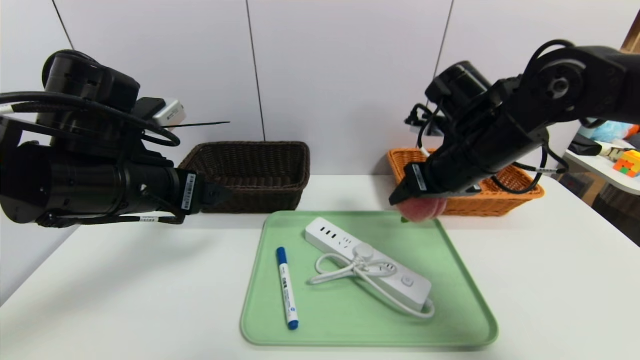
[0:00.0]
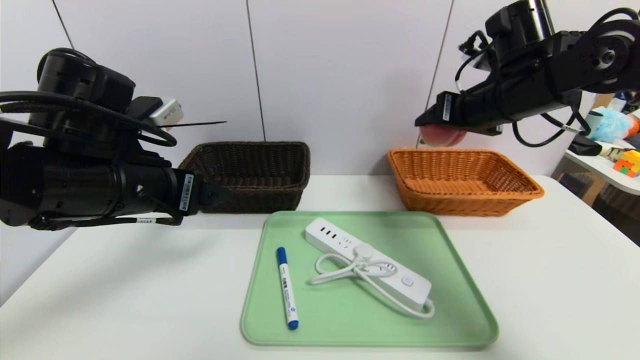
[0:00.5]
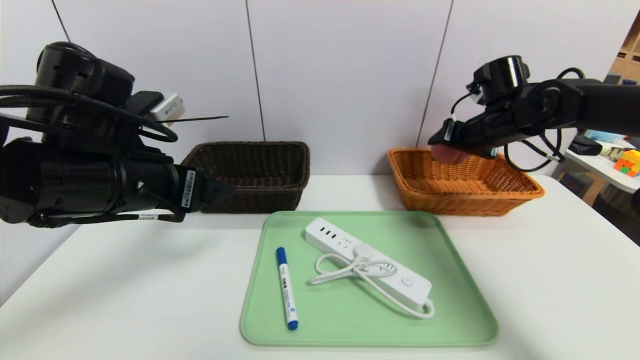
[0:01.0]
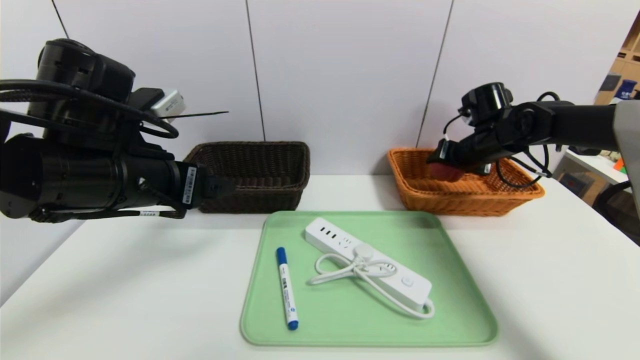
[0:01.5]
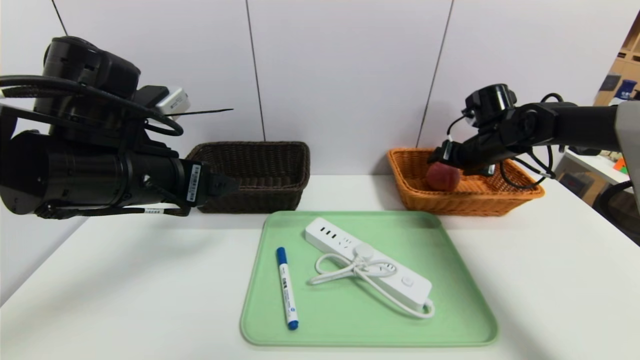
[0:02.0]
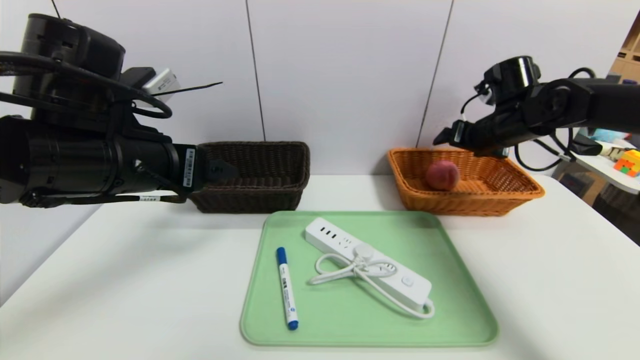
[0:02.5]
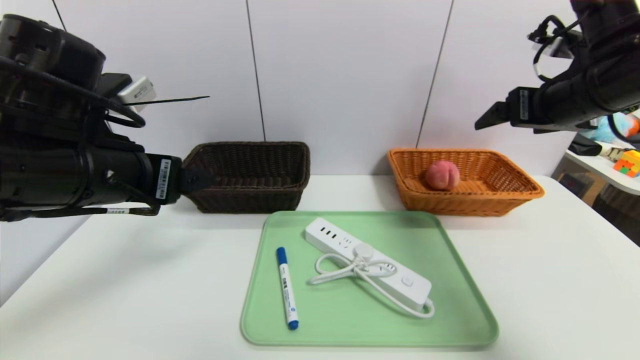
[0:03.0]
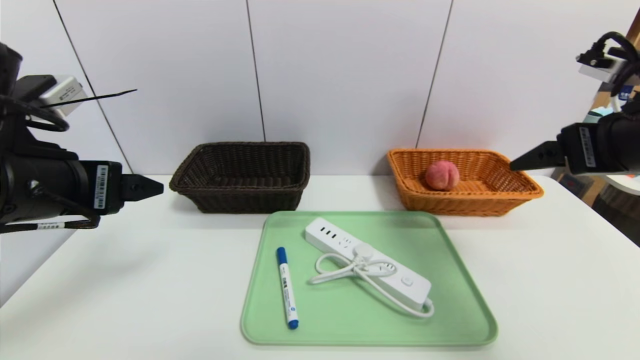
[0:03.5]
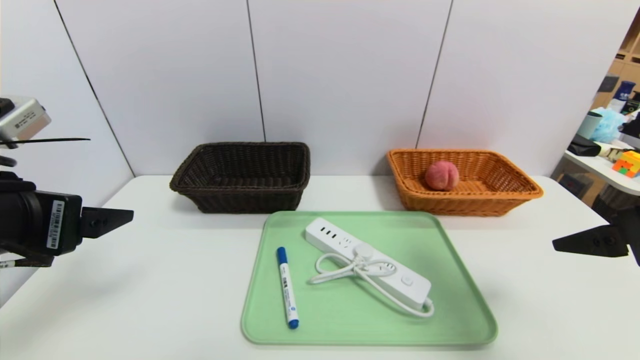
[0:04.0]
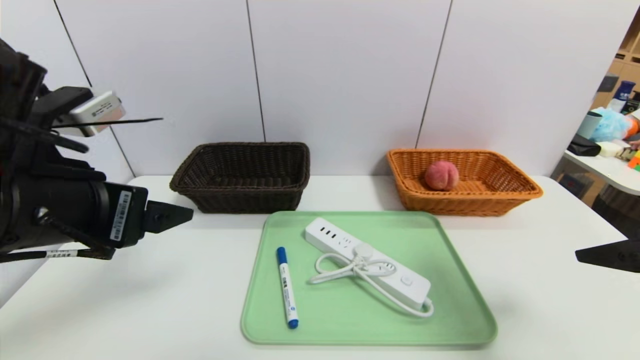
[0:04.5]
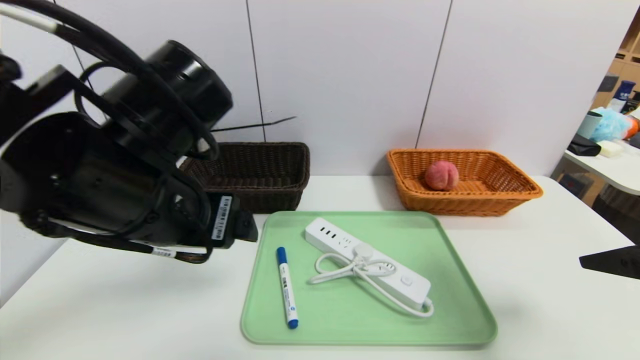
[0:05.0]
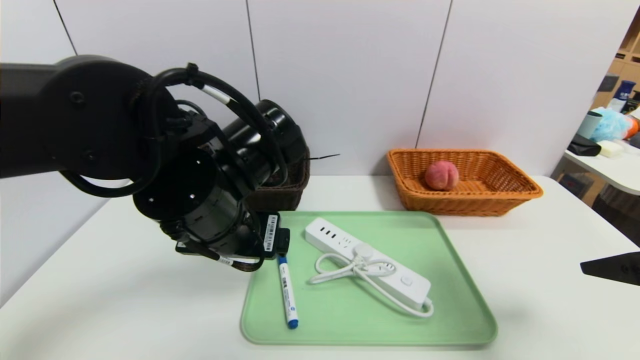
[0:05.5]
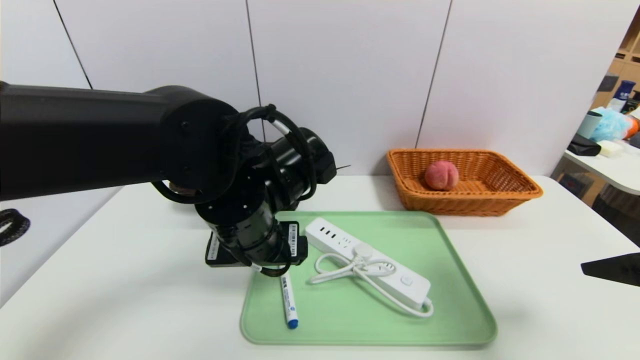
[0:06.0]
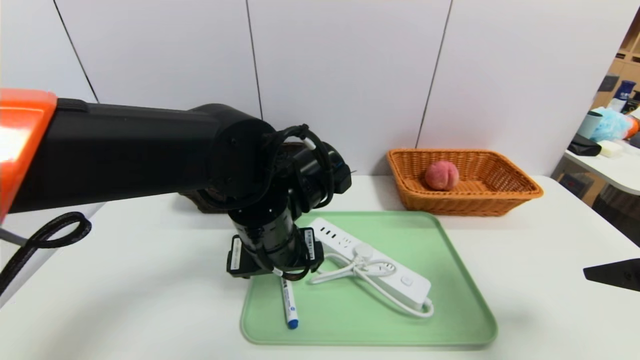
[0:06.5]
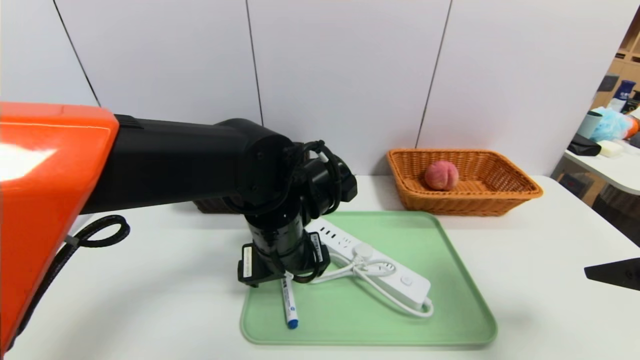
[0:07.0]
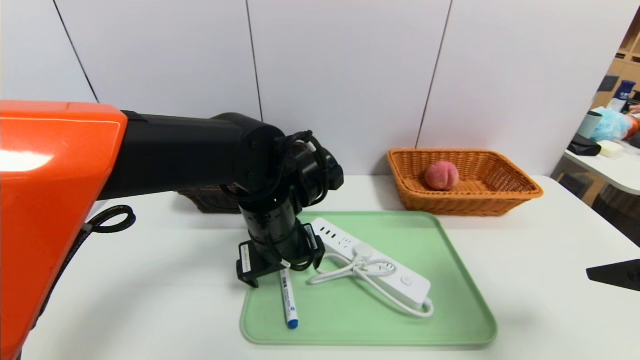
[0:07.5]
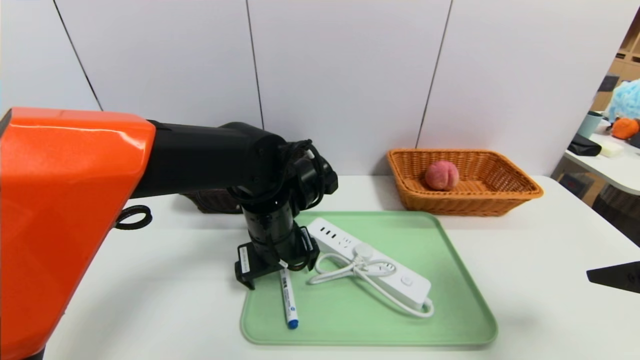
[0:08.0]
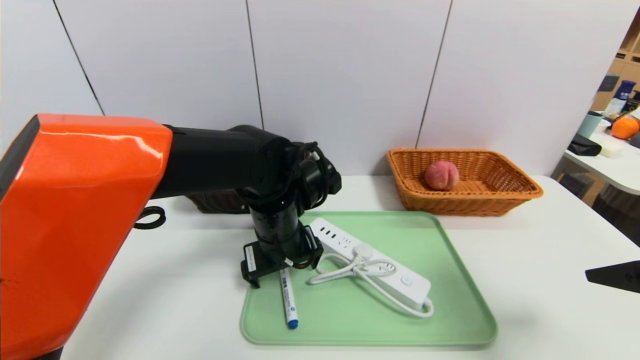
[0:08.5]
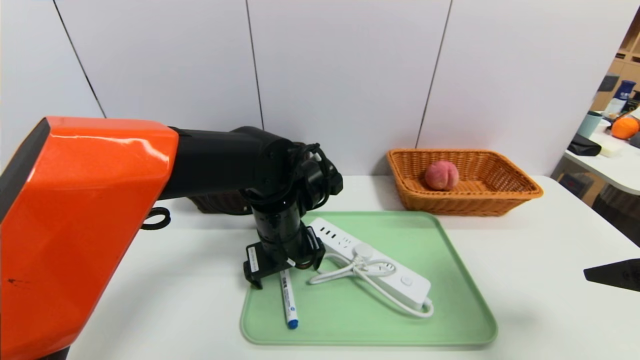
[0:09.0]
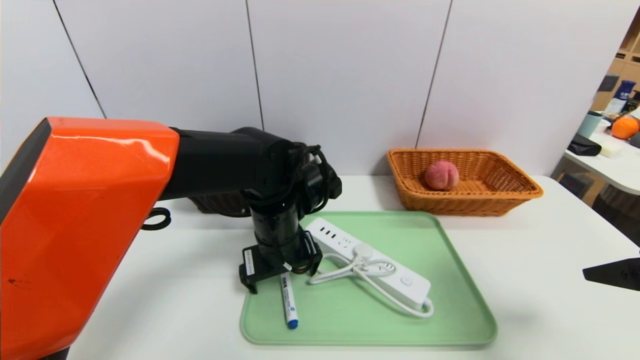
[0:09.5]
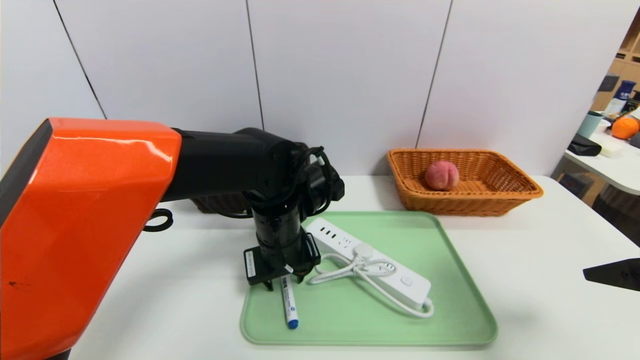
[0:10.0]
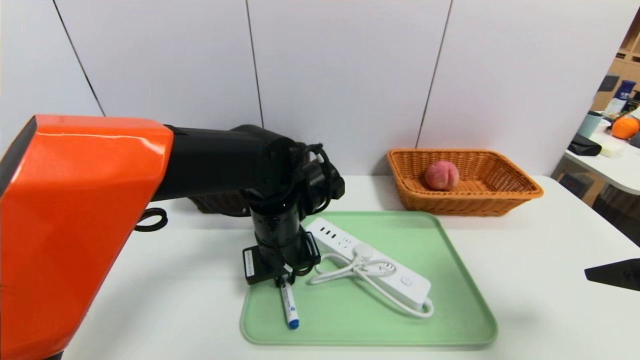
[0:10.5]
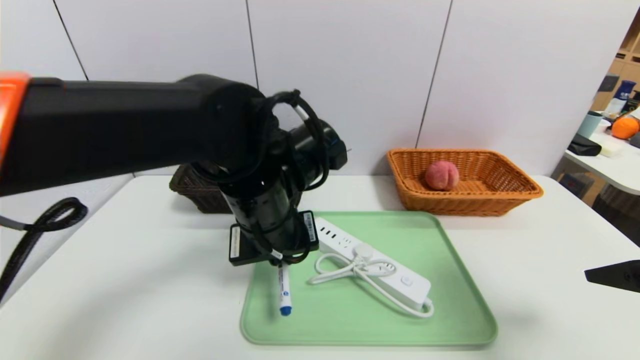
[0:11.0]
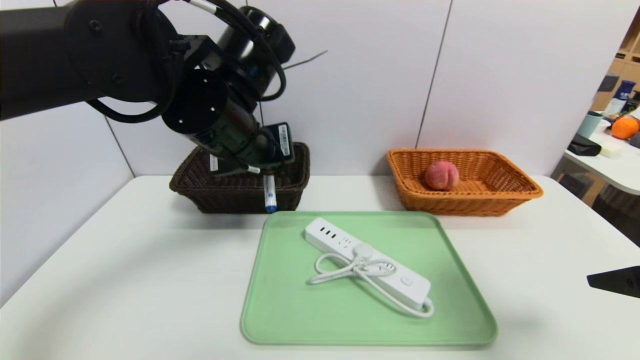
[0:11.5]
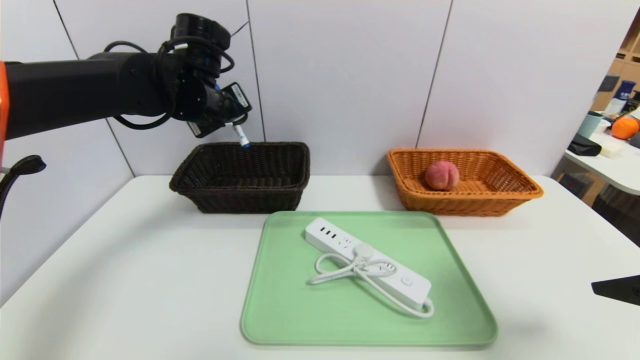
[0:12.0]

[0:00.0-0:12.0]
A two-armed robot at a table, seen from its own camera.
Task of the whole recording: place the food in the right basket with the right gripper, and place the non food items in the left basket with the left gripper.
Step, 0:00.0 to 0:02.0: Grasp the peach and put it in the right basket.
0:00.0 to 0:02.0: The right gripper goes about 20 cm forward, to the right and downward, and opens its fingers.
0:02.0 to 0:04.0: The right gripper moves backward, approximately 30 cm. Meanwhile the left gripper travels backward and to the left by about 10 cm.
0:04.0 to 0:06.0: The left gripper heads to the right and forward, covering roughly 20 cm.
0:06.0 to 0:08.0: The left gripper travels forward by about 5 cm.
0:08.0 to 0:10.0: The left gripper closes its fingers.
0:10.0 to 0:12.0: The left gripper is displaced upward, to the left and forward by some 20 cm, and closes its fingers.

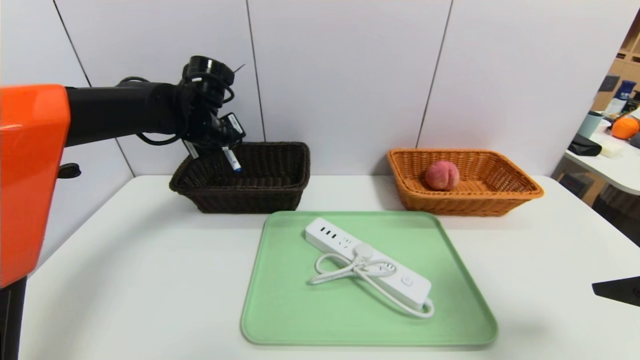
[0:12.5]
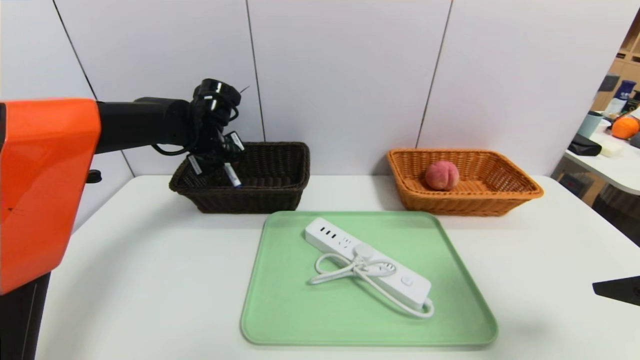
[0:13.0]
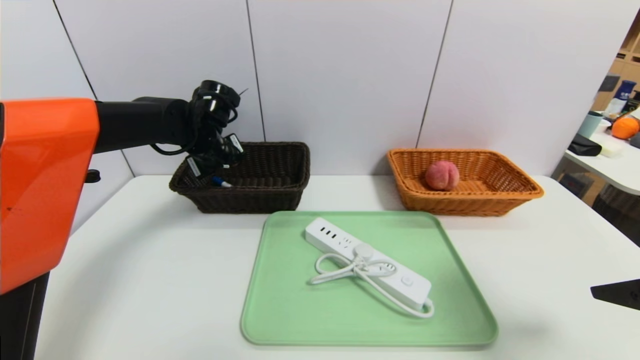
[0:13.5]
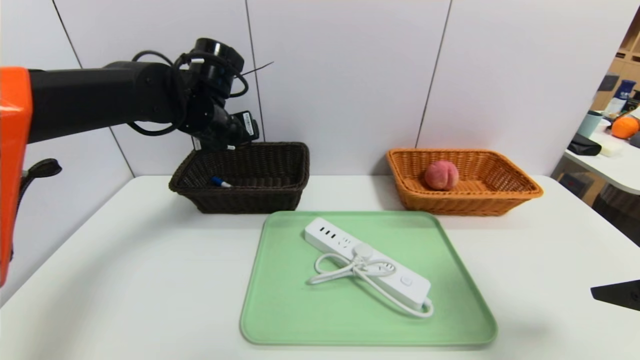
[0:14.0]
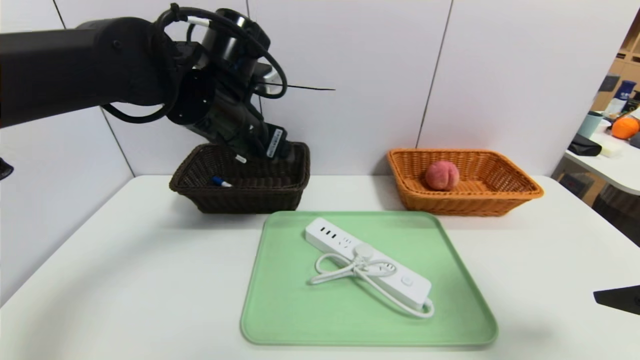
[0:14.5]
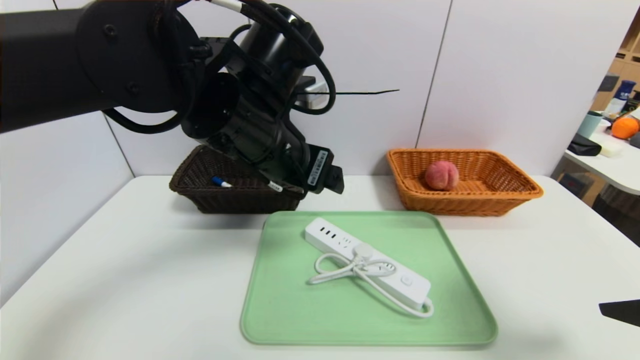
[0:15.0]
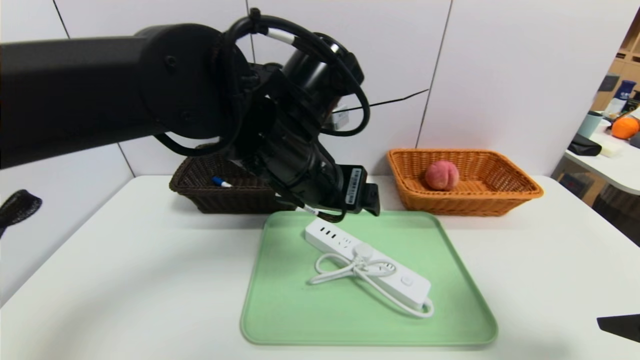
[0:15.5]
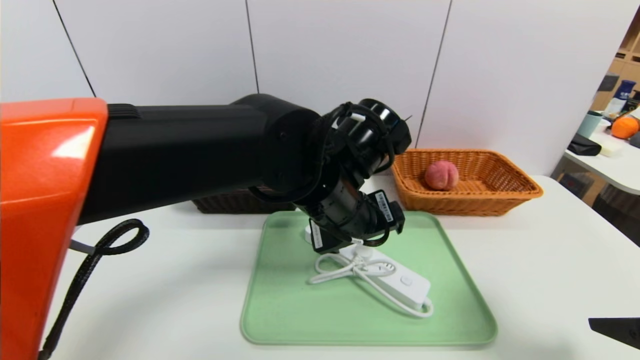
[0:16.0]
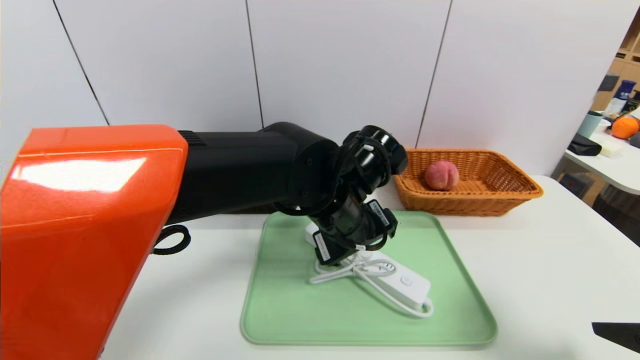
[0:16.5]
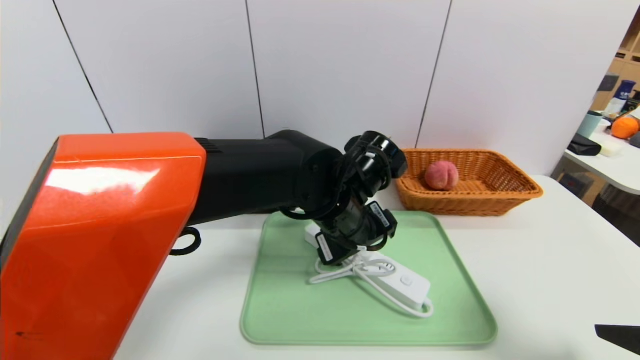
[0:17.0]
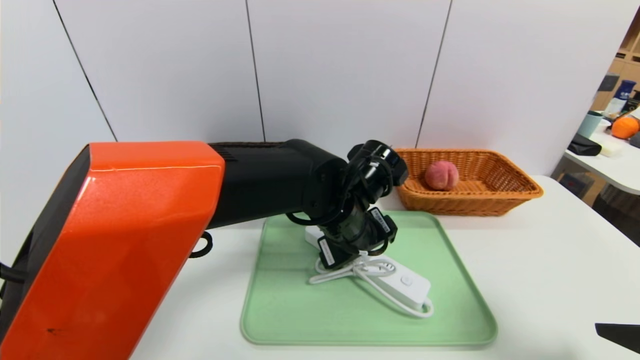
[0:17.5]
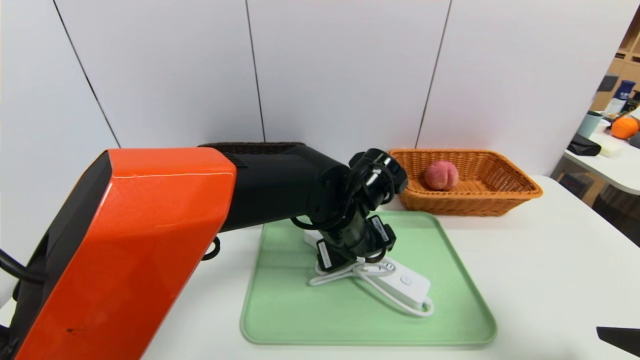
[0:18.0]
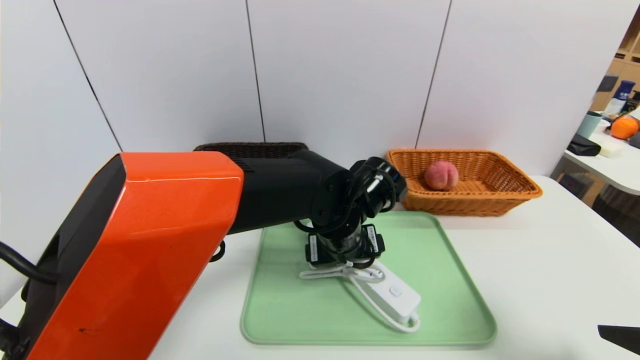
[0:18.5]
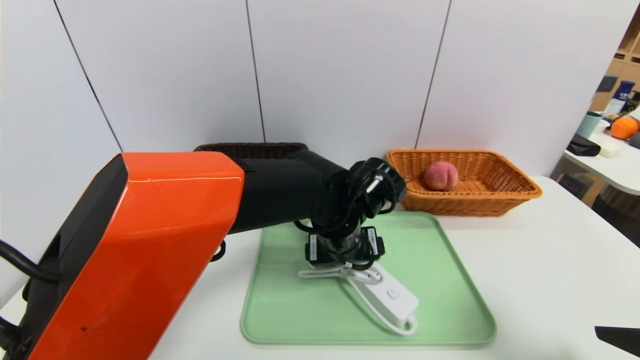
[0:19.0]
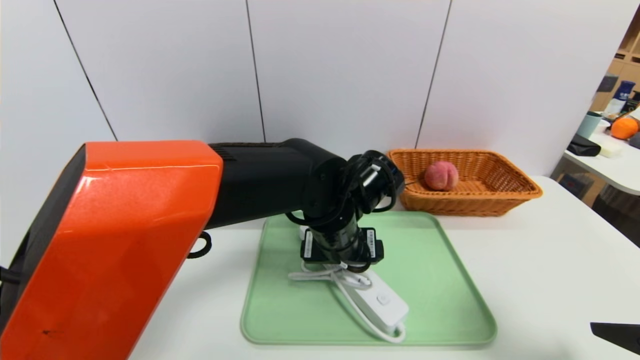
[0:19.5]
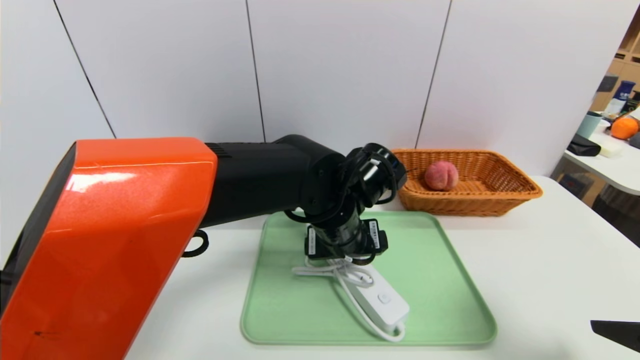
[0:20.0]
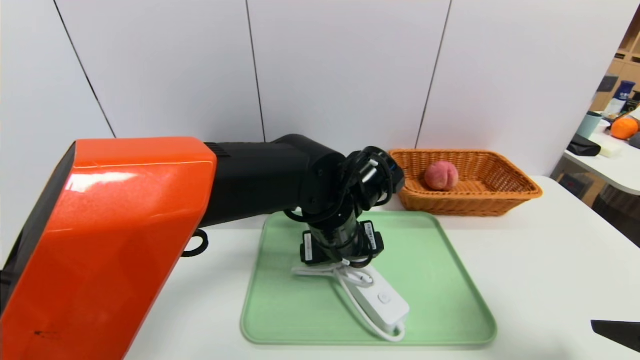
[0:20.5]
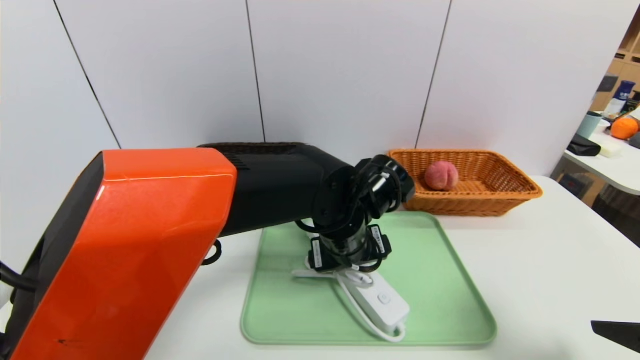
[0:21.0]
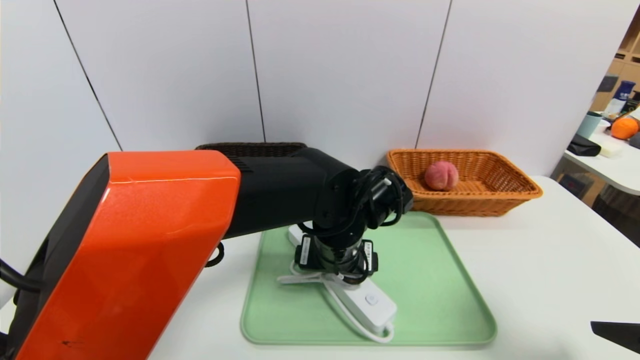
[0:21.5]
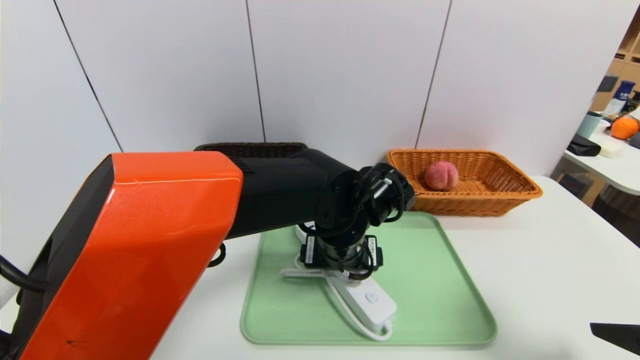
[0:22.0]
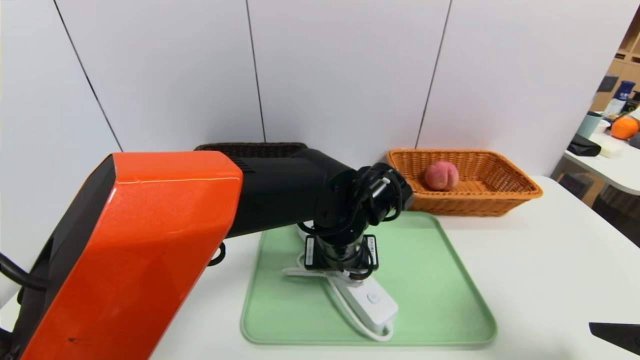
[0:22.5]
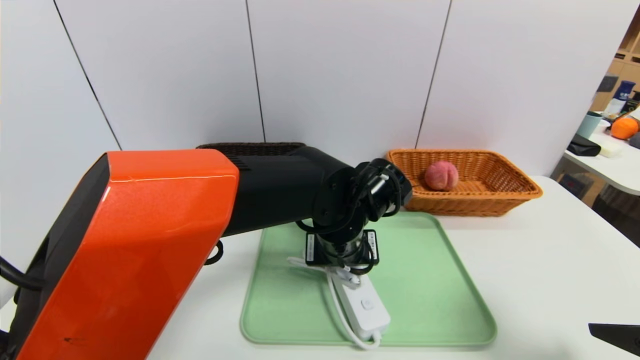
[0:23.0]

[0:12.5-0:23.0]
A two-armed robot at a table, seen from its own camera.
Task of the whole recording: place the food in the right basket with the right gripper, and place the non food items in the left basket with the left gripper.
0:12.5 to 0:14.5: The left gripper is displaced backward, to the right and upward by roughly 15 cm, and opens up.
0:14.5 to 0:16.5: The left gripper shifts some 15 cm to the right and downward.
0:19.0 to 0:21.0: There are only small adjustments of the grippers.
0:21.0 to 0:23.0: The left gripper closes.
